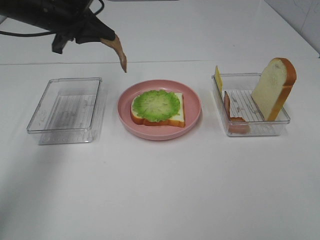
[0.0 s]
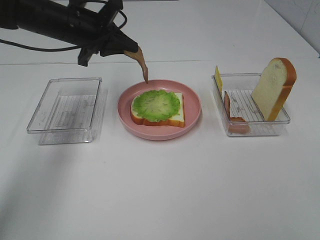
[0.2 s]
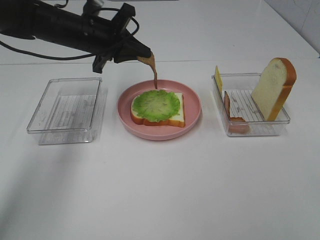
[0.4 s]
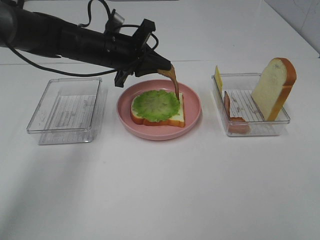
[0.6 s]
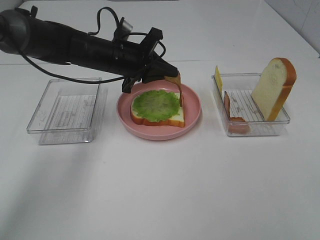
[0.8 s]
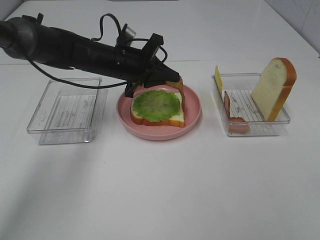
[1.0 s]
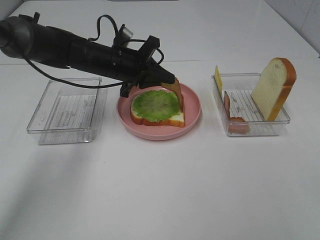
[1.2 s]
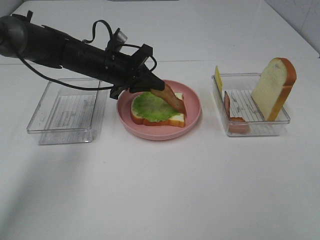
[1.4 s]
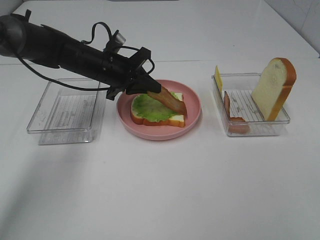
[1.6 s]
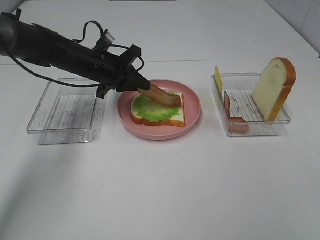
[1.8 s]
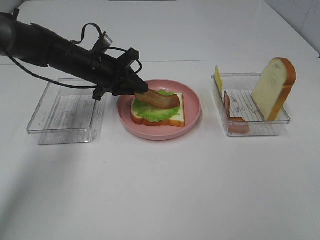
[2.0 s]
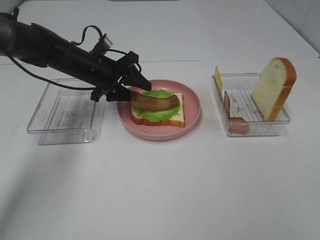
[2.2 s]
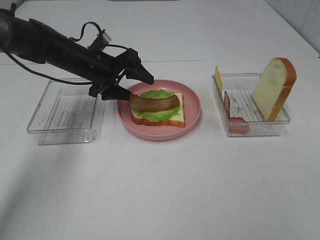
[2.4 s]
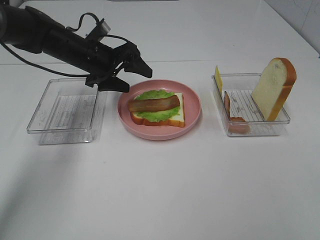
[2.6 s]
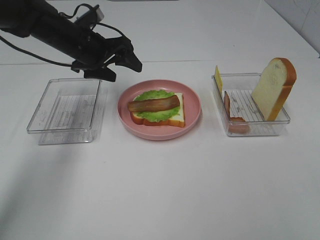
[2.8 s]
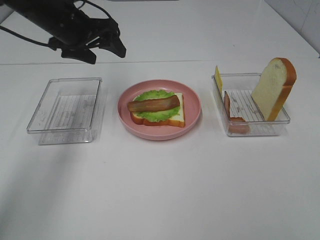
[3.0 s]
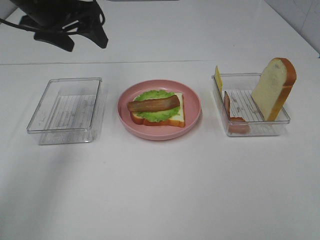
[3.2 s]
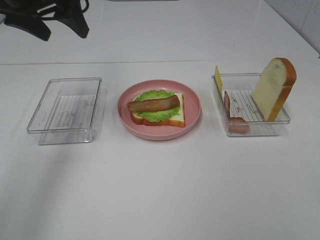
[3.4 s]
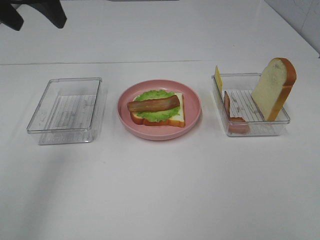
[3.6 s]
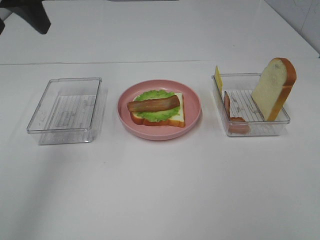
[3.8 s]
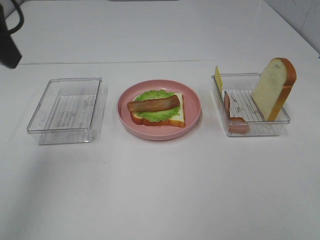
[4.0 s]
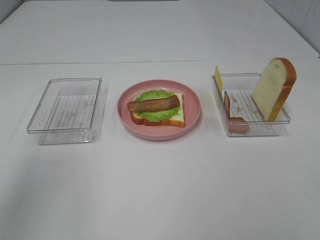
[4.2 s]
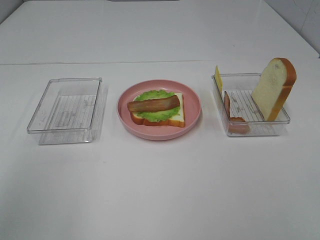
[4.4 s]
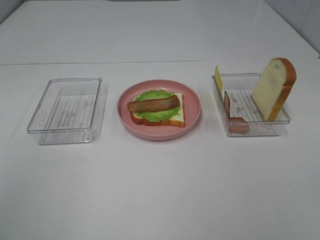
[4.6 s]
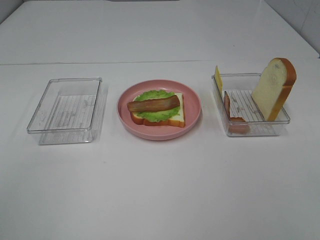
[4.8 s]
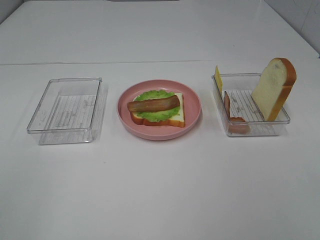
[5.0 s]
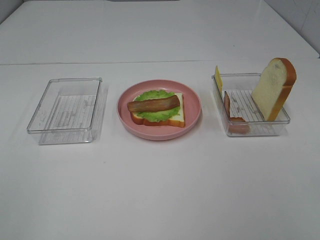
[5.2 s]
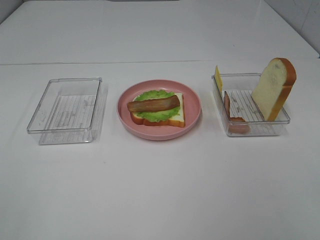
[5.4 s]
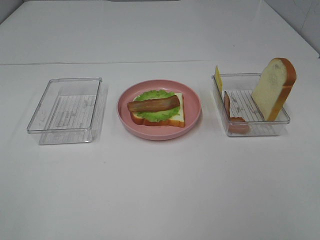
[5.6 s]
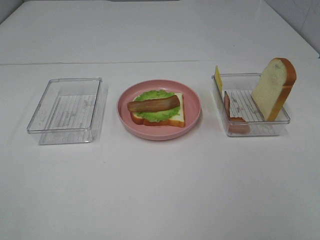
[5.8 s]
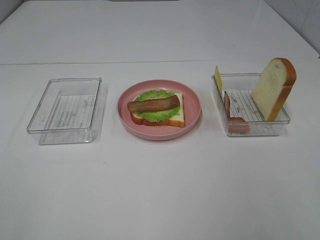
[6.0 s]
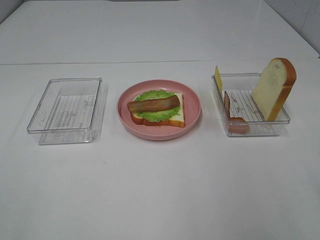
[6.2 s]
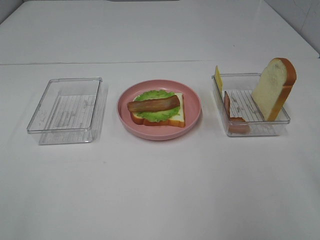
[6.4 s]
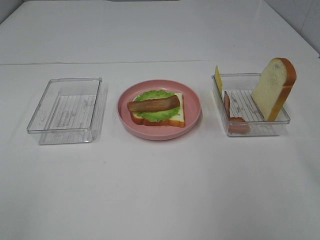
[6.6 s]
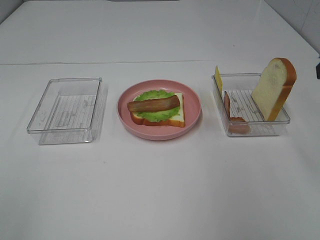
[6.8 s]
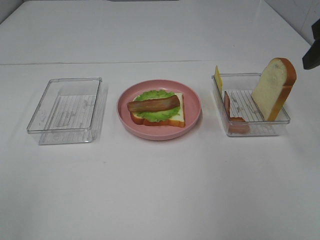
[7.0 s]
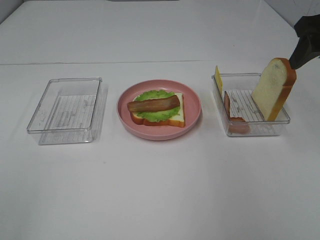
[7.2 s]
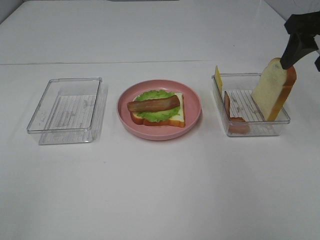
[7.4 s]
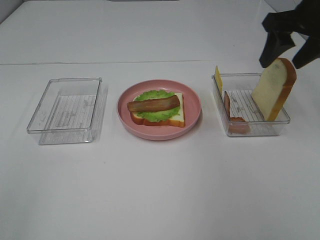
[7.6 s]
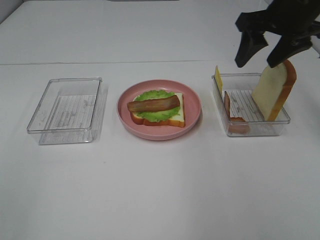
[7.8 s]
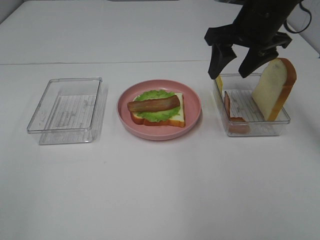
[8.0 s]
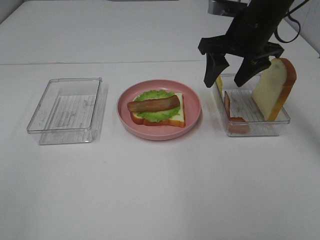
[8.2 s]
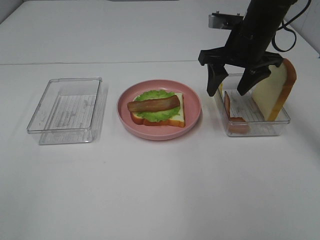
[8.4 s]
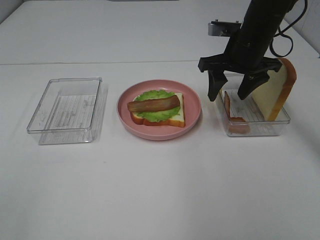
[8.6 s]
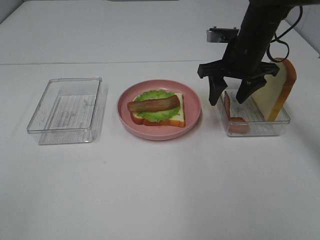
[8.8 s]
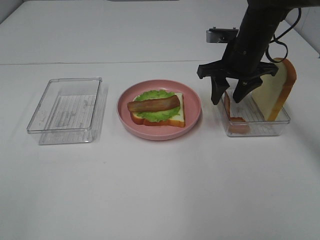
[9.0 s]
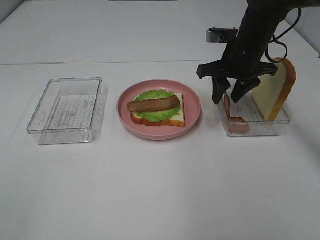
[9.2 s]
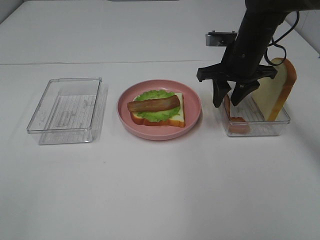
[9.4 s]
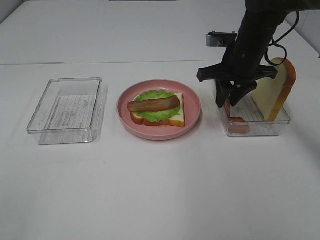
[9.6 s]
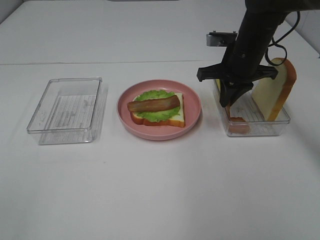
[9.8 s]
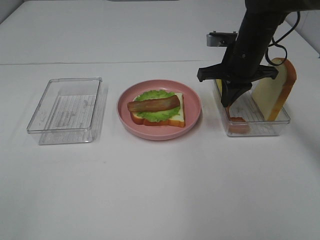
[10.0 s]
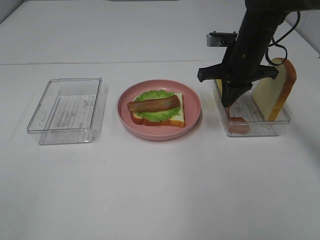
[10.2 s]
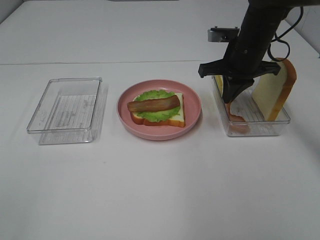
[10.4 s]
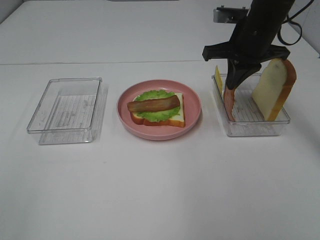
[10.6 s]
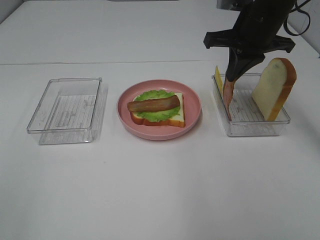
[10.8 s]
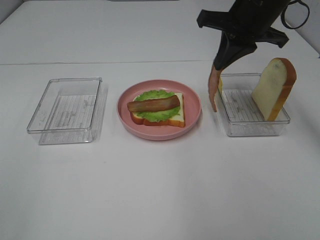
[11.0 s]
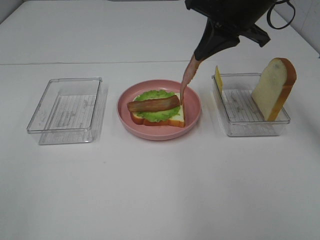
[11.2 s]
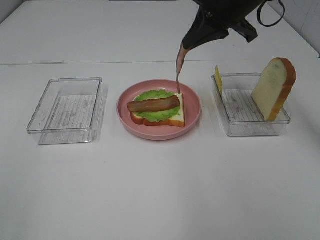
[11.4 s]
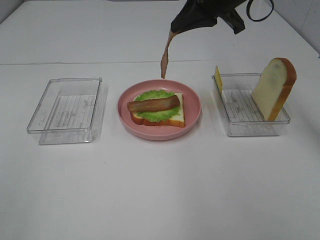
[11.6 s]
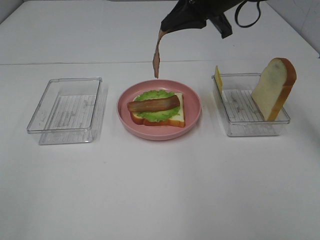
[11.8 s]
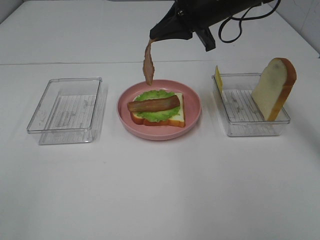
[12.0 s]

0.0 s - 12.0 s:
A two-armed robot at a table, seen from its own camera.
Task of the whole recording: Make sandwiches.
Step, 0.0 s - 2.6 s: Left hand:place bacon on lettuce slice.
Step, 2.8 s - 10.4 s: Right hand:grab the bacon.
0.0 s - 1.6 s: The left gripper is displaced downward and to the right by some 15 cm.
1.6 s - 3.0 s: The left gripper is displaced upward and to the left by roughly 10 cm, and opens.
3.0 s - 4.4 s: The left gripper is displaced backward and upward by approximately 35 cm.
6.0 s - 7.6 s: The right gripper is displaced forward by some 30 cm.
7.6 s - 9.0 s: The right gripper goes some 15 cm downward, to the left and forward.
9.0 s - 10.4 s: The right gripper closes.
10.4 s - 12.0 s: The right gripper goes roughly 10 cm upward and to the left.

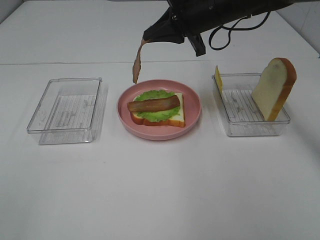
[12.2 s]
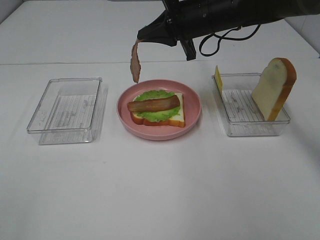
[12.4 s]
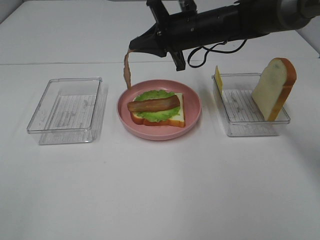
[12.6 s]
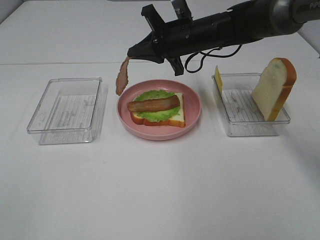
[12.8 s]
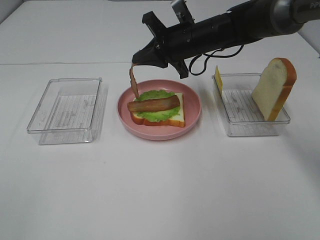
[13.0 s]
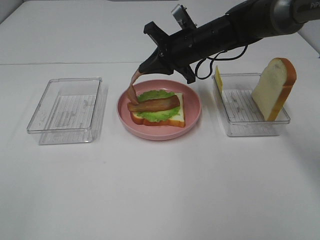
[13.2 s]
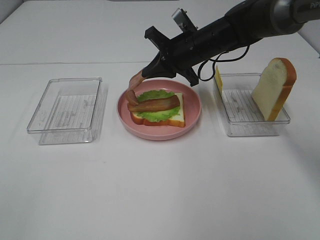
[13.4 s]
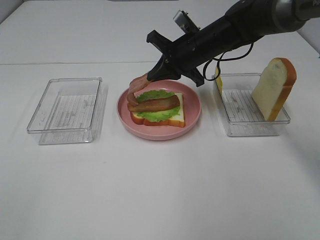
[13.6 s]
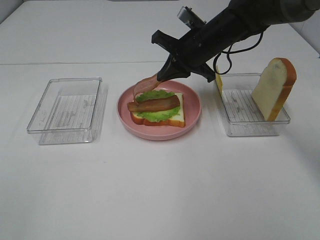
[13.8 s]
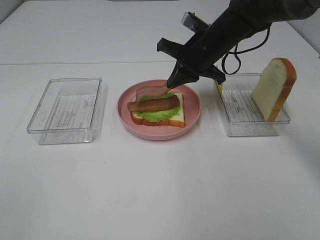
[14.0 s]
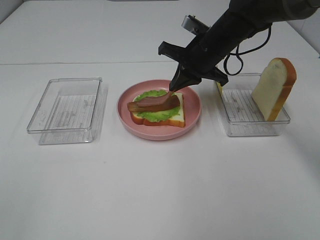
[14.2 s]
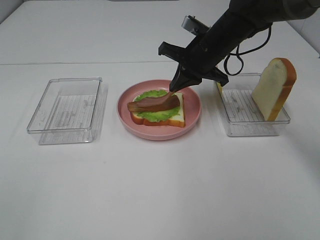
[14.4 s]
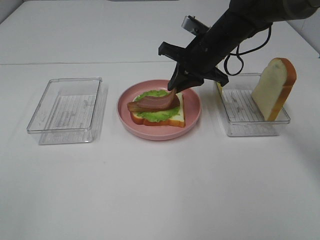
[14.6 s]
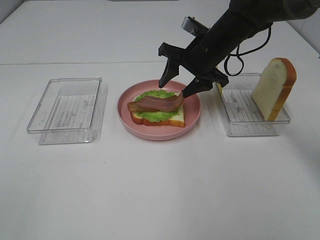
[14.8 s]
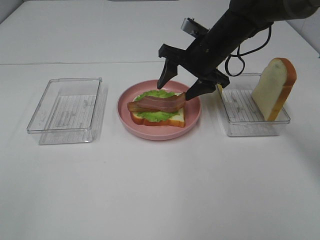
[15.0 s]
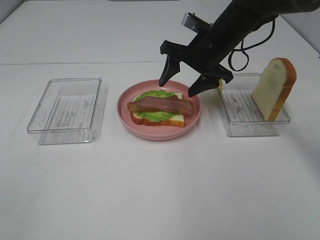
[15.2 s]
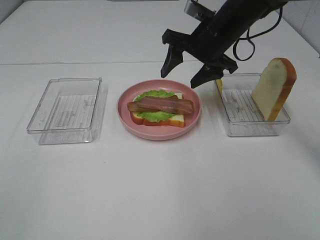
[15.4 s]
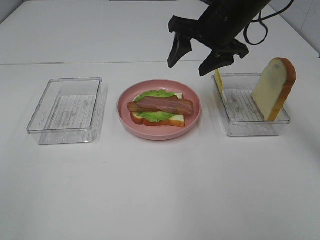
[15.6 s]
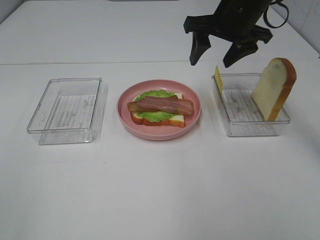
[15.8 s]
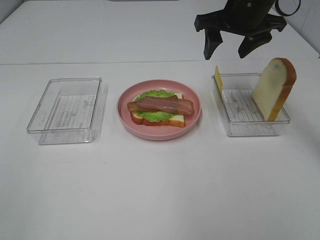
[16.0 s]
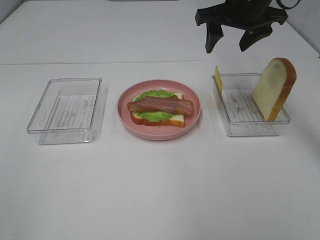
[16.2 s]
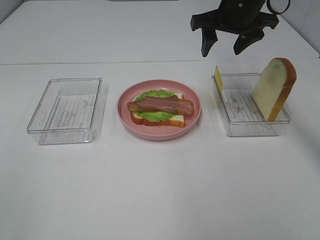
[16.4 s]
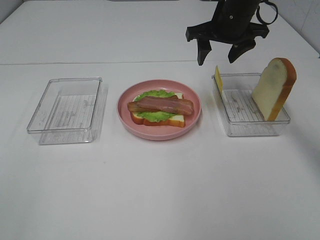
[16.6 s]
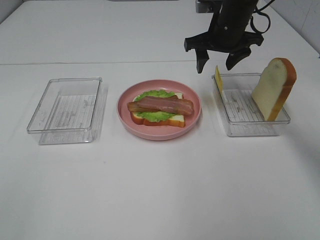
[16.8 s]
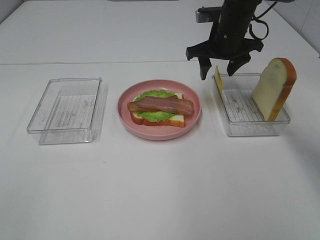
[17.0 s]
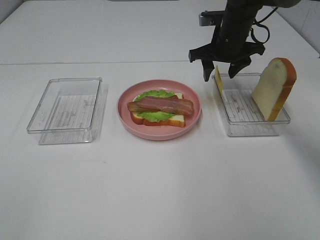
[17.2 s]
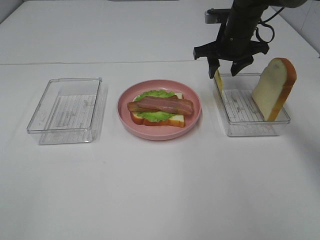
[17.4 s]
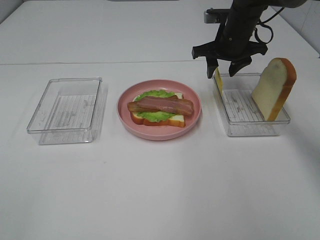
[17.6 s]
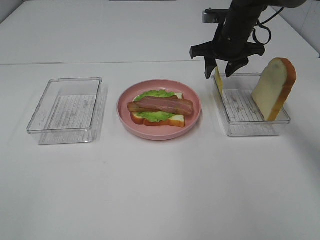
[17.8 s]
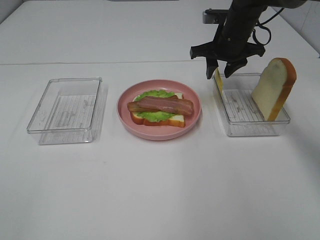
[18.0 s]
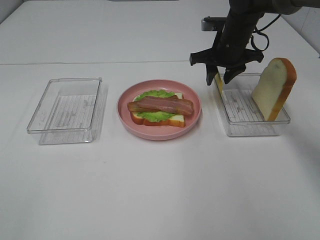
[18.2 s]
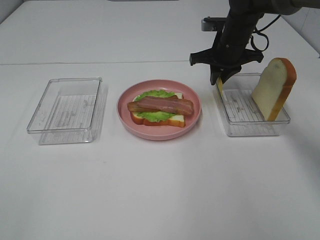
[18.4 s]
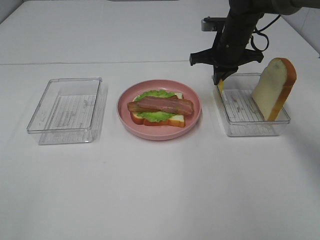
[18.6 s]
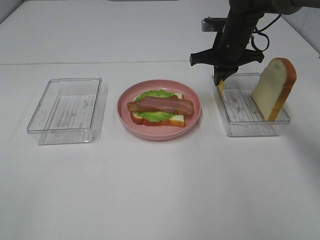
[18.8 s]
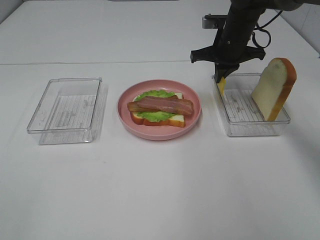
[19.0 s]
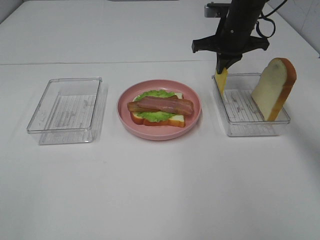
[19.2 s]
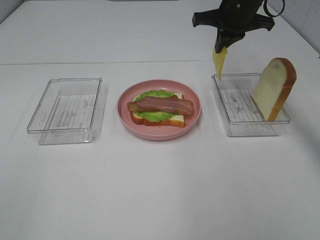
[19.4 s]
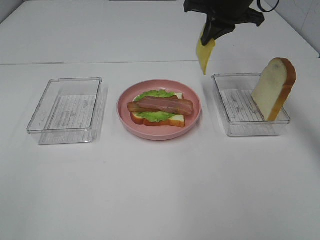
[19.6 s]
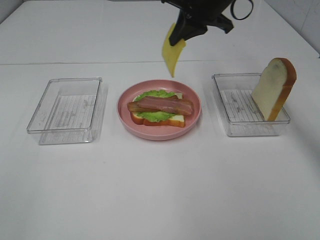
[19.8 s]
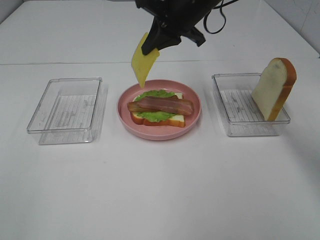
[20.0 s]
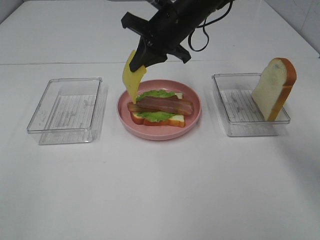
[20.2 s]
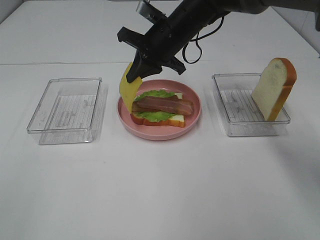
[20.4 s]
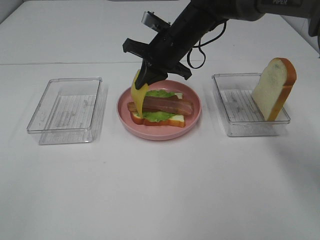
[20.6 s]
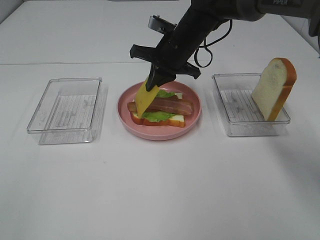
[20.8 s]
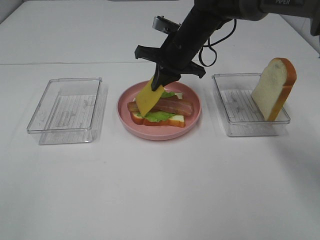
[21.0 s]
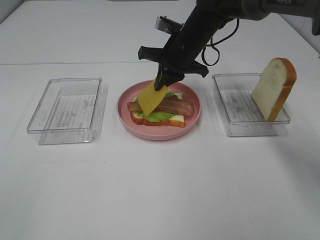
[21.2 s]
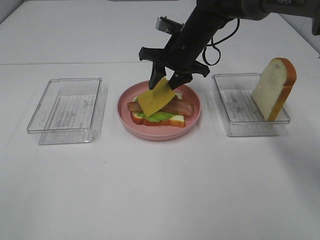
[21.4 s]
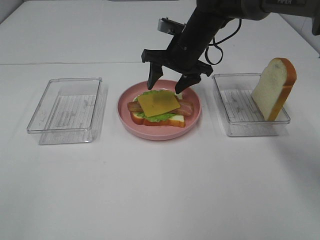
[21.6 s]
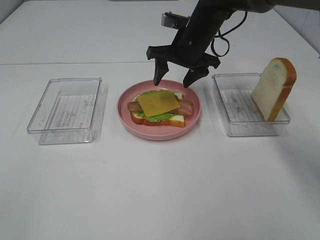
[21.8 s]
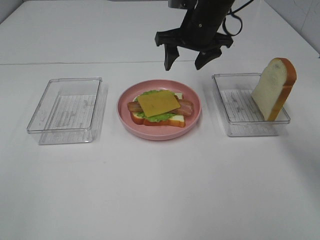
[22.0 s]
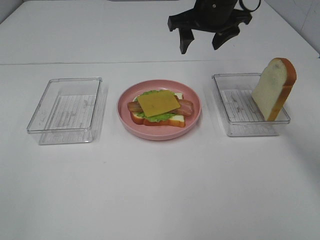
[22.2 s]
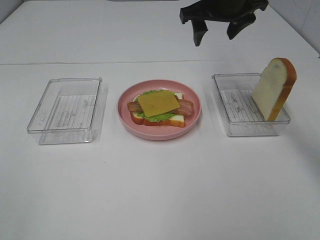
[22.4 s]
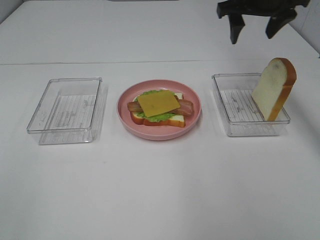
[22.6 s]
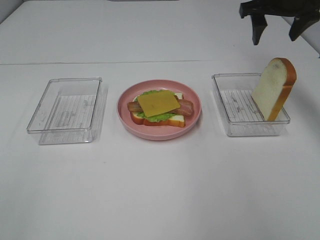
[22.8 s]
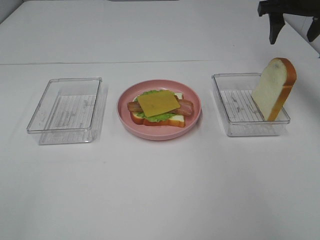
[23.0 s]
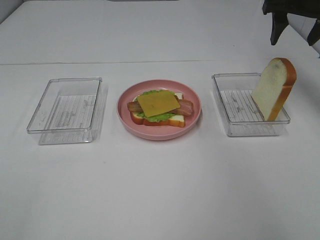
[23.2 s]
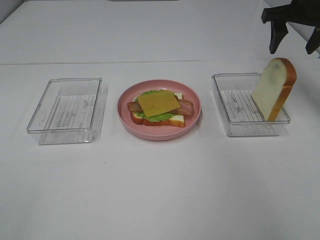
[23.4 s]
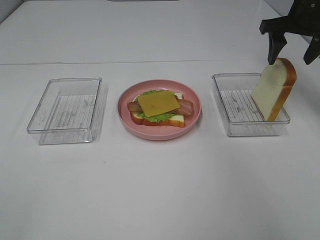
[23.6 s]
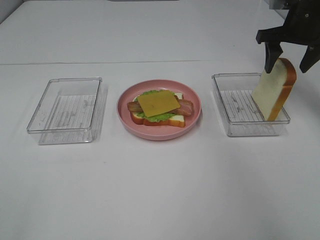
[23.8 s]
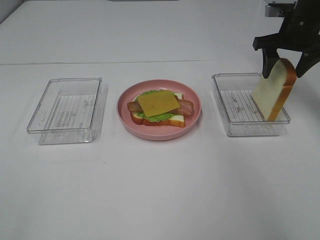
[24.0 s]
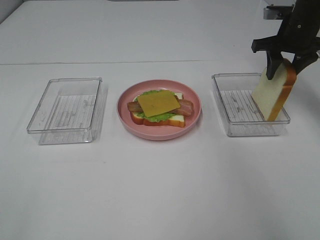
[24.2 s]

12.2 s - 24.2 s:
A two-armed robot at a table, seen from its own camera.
Task of the whole recording: Make sandwiches.
Step, 12.2 s - 15.4 s: Right hand:place bacon on bacon.
Step, 15.6 s - 18.8 s: Right hand:grab the cheese slice.
Step, 19.0 s - 21.8 s: Right hand:place the cheese slice on top of the bacon.
12.2 s - 13.8 s: The right gripper shifts some 5 cm downward.
13.8 s - 15.2 s: The right gripper opens.
16.6 s - 18.2 s: The right gripper shifts some 5 cm downward.
18.2 s - 19.8 s: The right gripper shifts approximately 10 cm upward and to the left, and closes its fingers.
19.8 s - 21.2 s: The right gripper moves downward, roughly 10 cm.
21.2 s - 22.6 s: The right gripper shifts about 15 cm to the right and upward, and opens its fingers.
22.6 s - 24.2 s: The right gripper shifts some 10 cm to the right and downward, and closes up.
